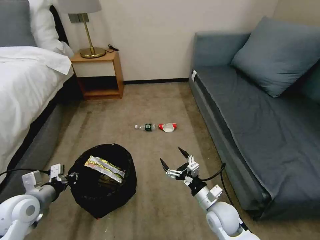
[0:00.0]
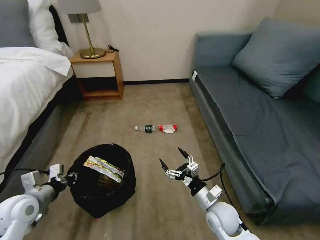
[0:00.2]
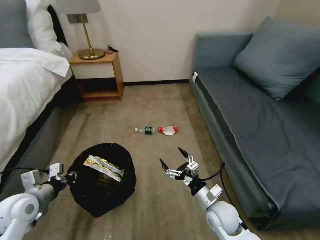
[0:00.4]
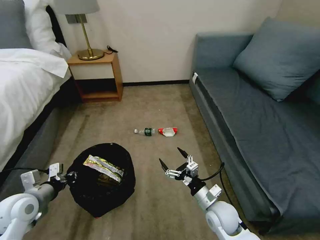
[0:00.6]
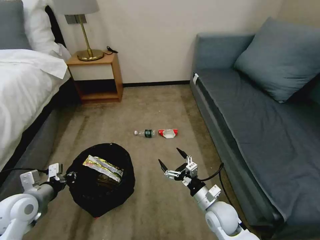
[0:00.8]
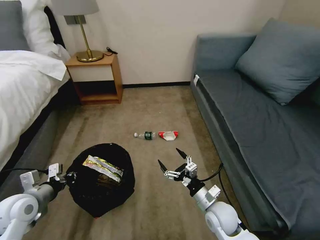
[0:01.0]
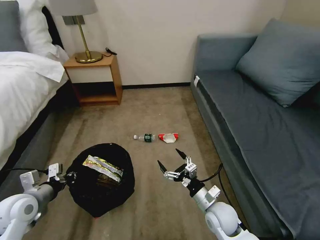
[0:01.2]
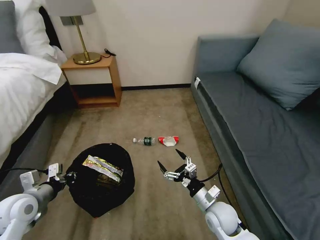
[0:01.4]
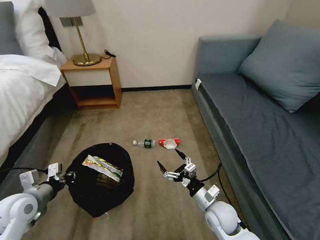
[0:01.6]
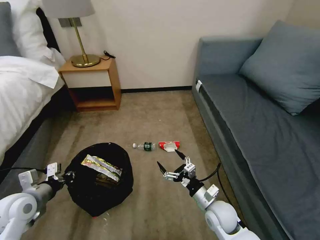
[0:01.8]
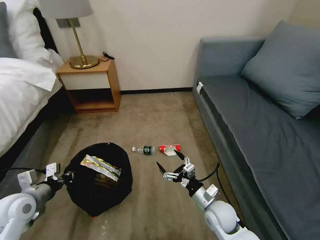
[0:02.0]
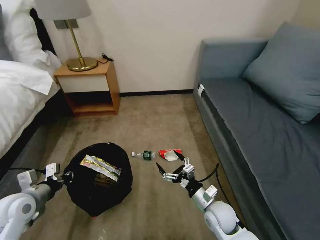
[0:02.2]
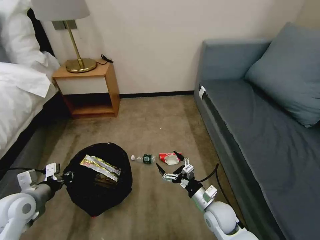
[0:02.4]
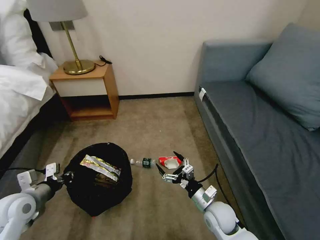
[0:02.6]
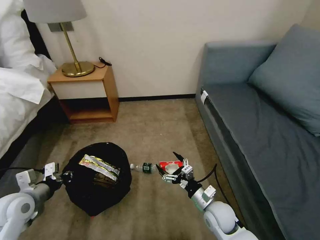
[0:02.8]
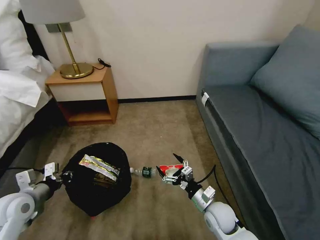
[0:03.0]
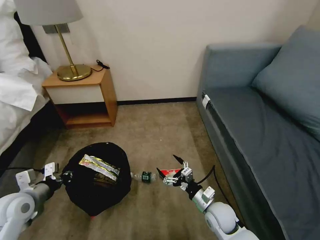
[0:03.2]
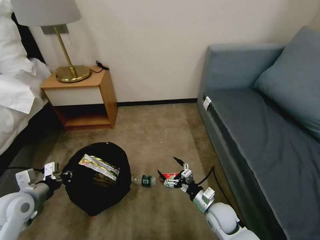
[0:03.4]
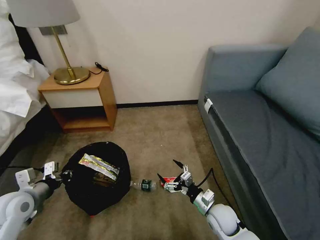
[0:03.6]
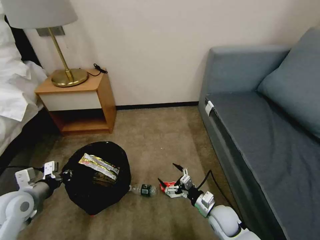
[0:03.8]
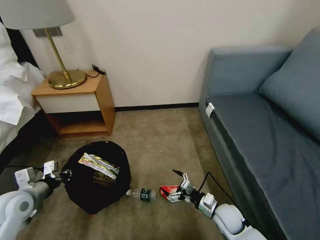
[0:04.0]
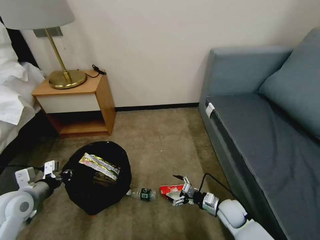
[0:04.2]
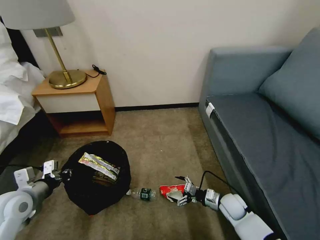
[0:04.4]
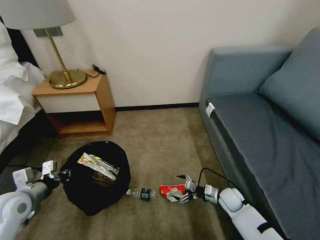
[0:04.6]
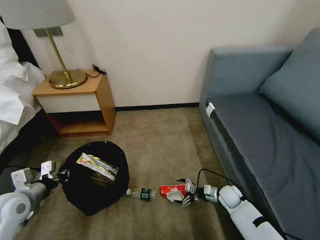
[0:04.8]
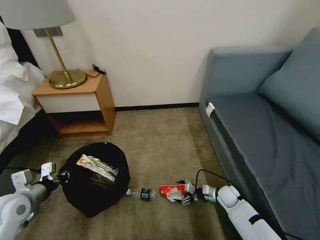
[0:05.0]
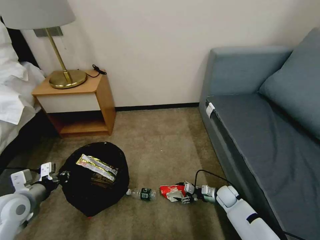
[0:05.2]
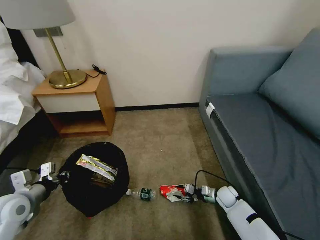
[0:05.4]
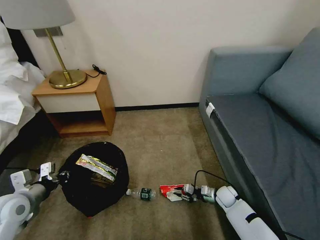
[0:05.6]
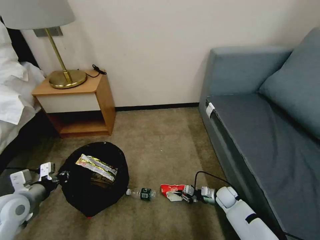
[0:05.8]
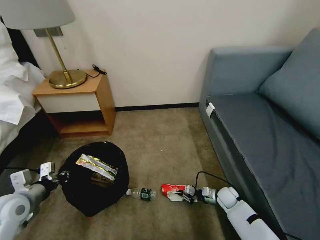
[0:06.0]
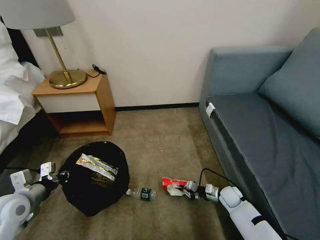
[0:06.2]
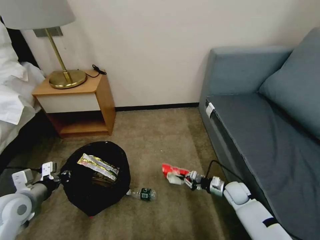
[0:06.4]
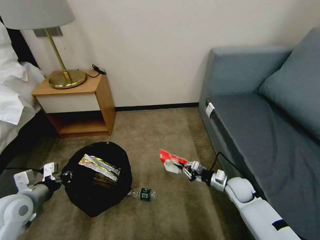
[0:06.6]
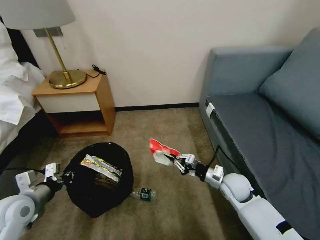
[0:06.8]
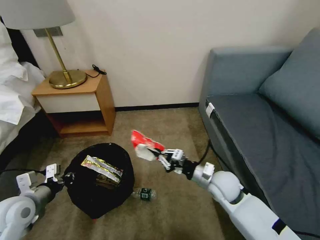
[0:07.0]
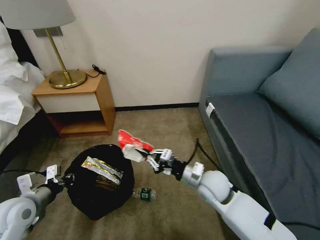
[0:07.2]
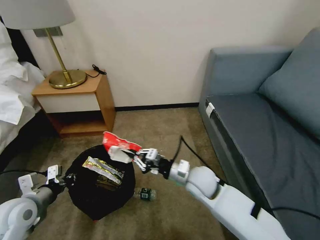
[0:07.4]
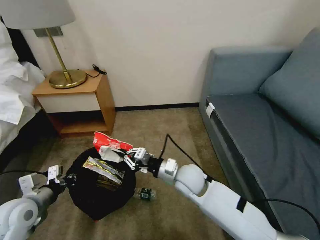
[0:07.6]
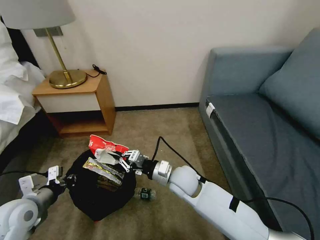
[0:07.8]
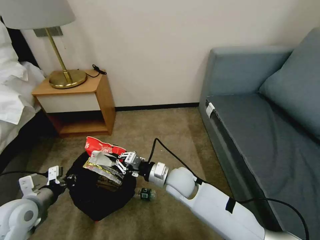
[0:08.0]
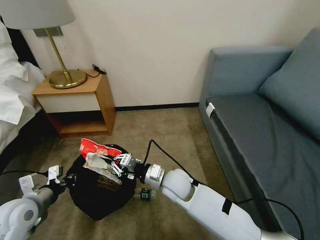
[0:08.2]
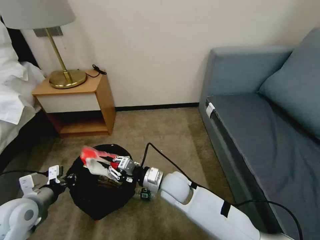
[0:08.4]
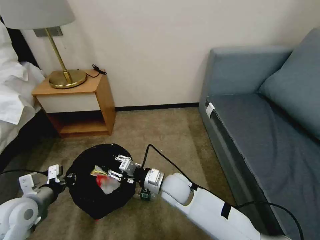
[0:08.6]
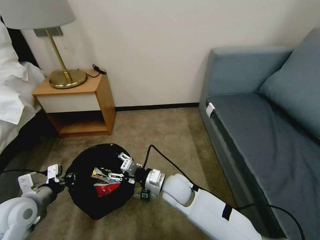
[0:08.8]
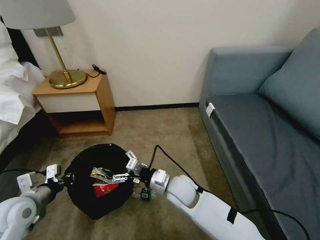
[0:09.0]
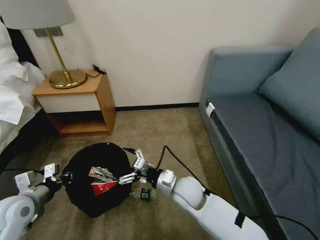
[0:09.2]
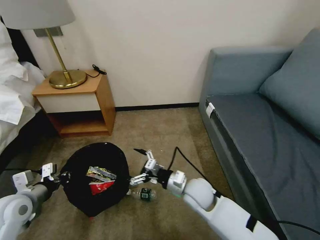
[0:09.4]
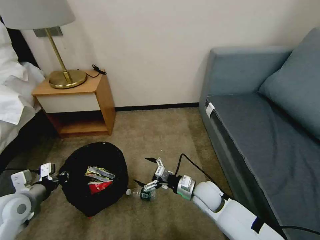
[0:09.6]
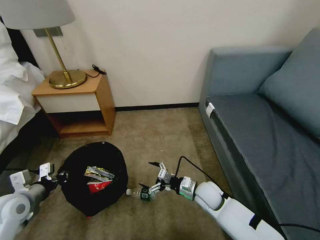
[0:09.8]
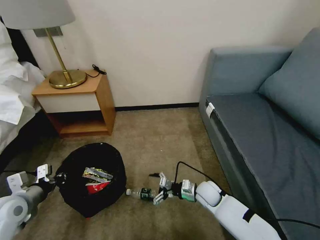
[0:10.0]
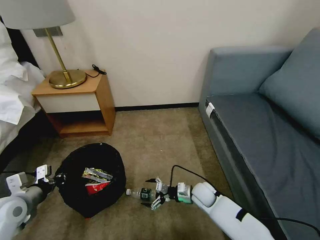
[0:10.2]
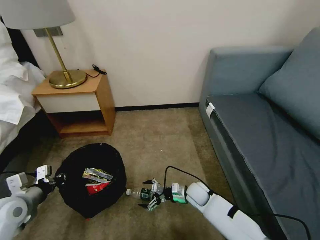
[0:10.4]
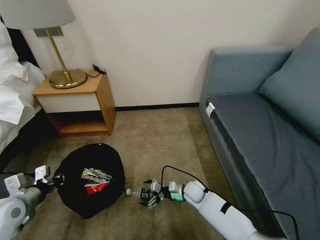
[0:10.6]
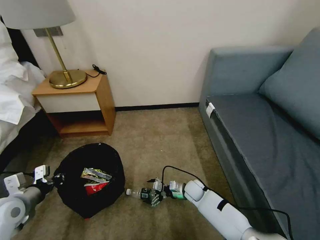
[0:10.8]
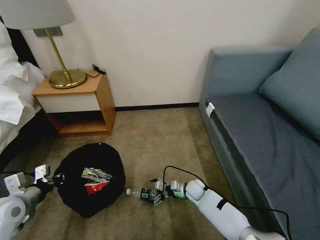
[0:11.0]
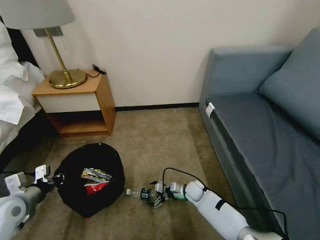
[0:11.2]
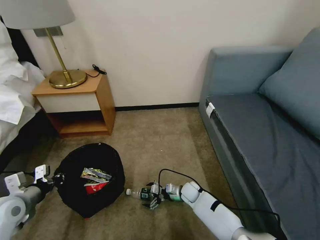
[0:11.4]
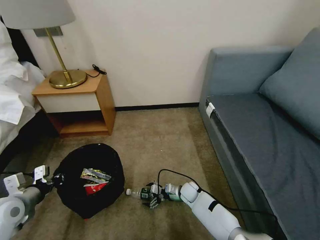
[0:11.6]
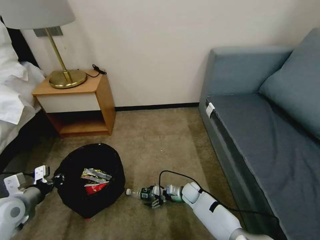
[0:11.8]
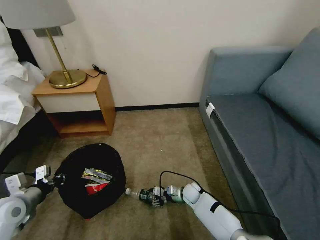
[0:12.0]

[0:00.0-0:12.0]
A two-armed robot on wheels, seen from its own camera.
Task of the whole recording: Pick up the trash bin, then pick up the garbage on the floor and place it into the trash bin.
3.0 to 4.4 s: The right gripper is displaced to the right, downward and forward by some 10 cm.
4.4 to 6.0 s: The right gripper is displaced downward by about 5 cm, and closes its fingers.
6.0 to 7.6 s: The right gripper moves upward and to the left, roughly 30 cm.
7.6 to 9.0 s: The right gripper opens its fingers.
9.0 to 10.4 s: The right gripper travels downward and to the right by about 20 cm.
10.4 to 12.0 s: The right gripper is displaced downward by about 5 cm, and closes its fingers.

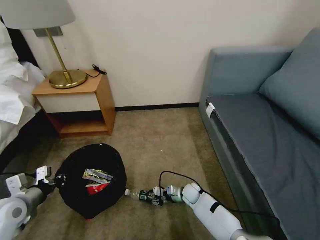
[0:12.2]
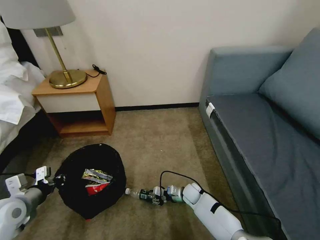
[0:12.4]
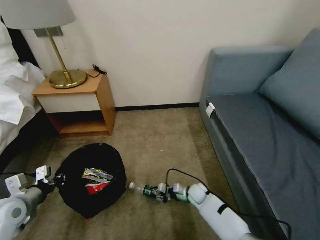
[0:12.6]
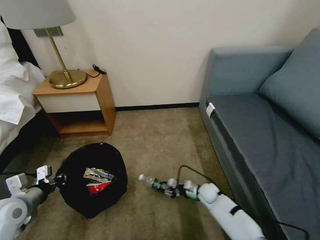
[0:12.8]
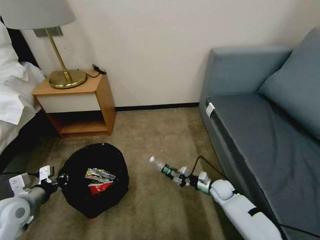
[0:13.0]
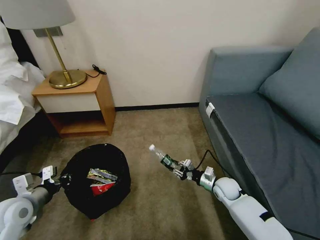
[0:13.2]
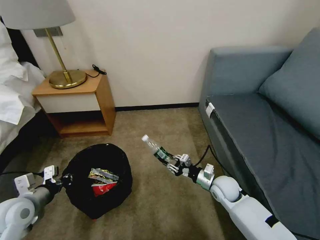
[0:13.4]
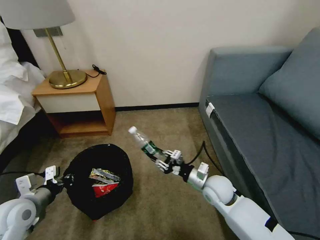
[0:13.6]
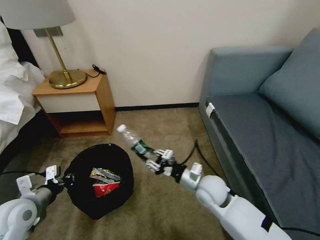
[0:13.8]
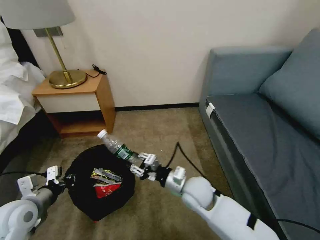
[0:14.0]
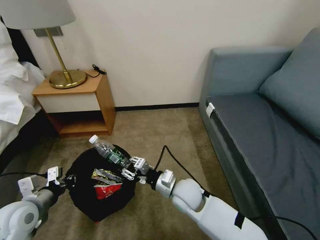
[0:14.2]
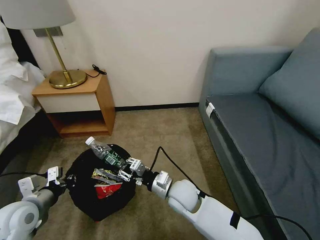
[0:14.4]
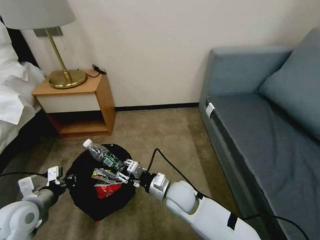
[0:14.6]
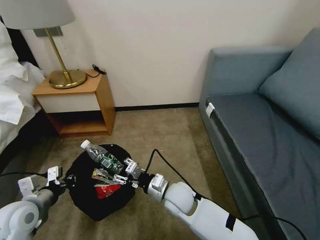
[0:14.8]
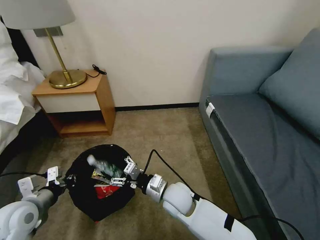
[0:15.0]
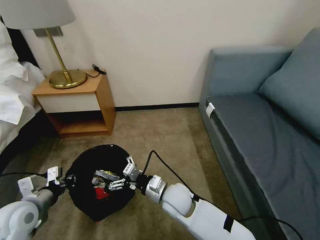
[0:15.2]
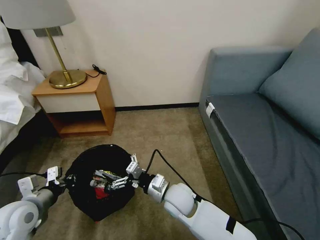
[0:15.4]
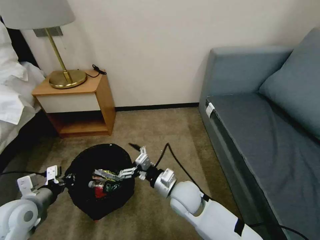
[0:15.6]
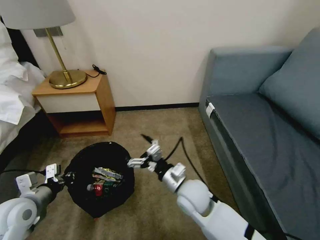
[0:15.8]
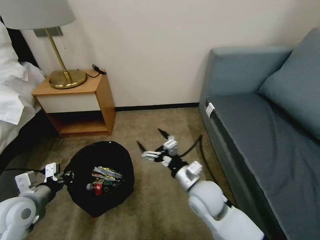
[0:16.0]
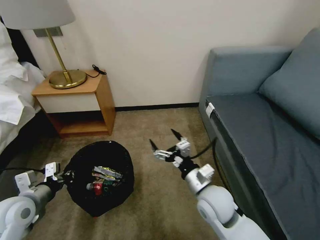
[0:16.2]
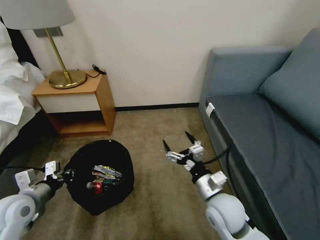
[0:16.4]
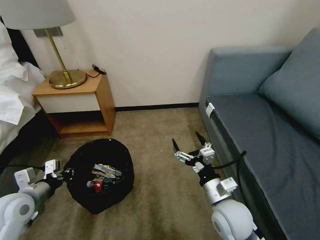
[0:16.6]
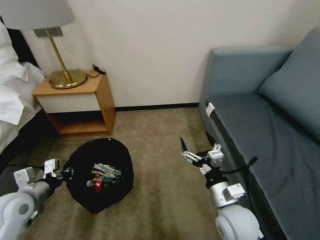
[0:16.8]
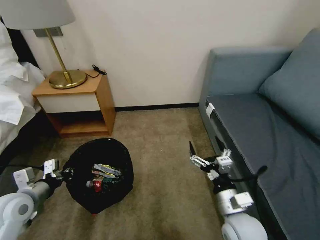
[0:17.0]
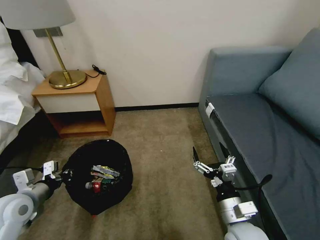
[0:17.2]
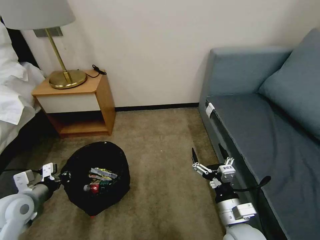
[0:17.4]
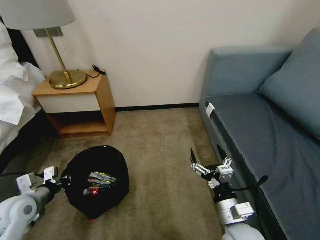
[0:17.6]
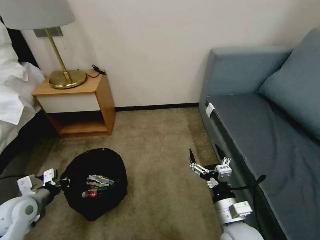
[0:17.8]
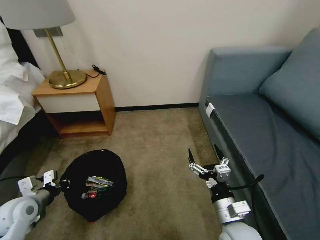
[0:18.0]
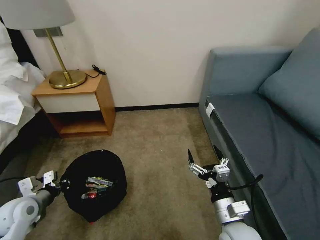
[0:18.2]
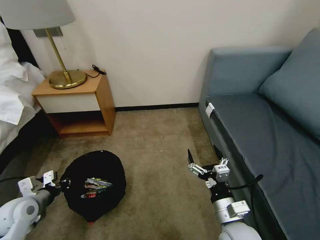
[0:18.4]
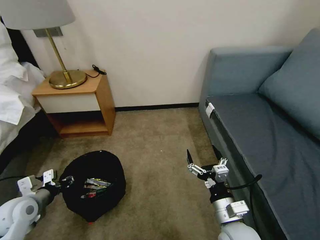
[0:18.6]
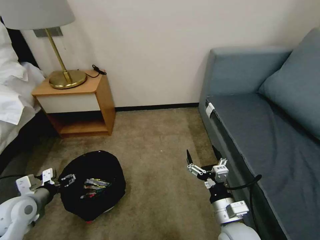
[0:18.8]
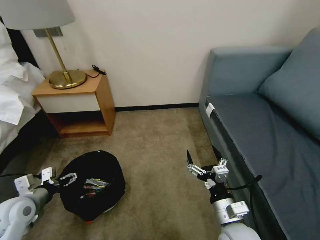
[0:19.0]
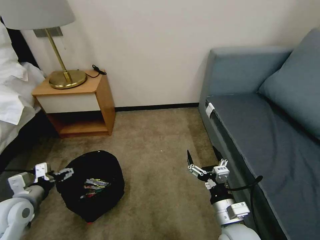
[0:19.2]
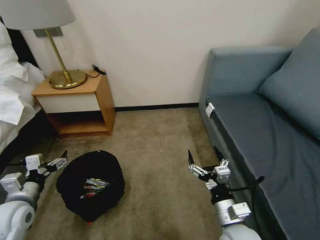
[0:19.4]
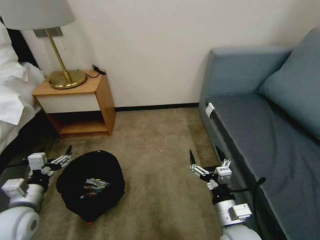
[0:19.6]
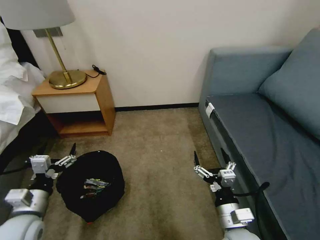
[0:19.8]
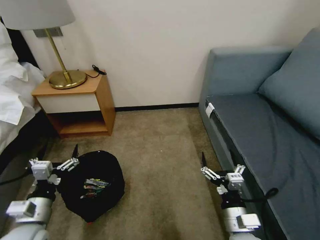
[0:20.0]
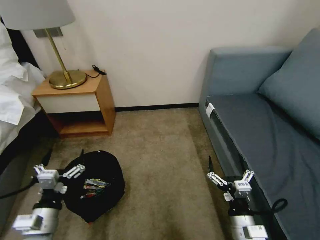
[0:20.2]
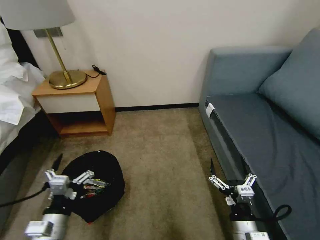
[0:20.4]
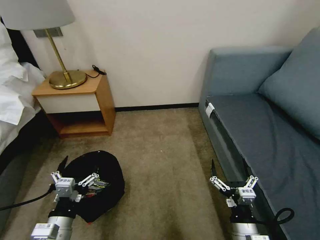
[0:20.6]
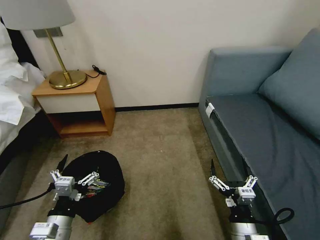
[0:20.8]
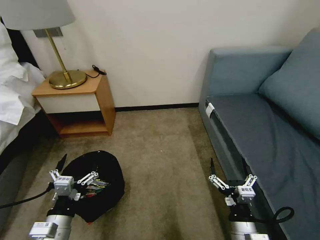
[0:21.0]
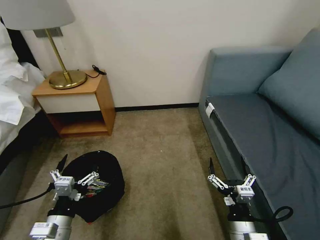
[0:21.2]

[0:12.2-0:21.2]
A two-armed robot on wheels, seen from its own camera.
Task of the whole recording: Pick up the trash bin, then pick up the garbage on the floor and place it into the trash bin.
12.2 to 13.8 s: The right gripper travels upward by some 25 cm.
13.8 to 15.2 s: The right gripper heads to the left, covering about 10 cm, and opens.
15.2 to 16.6 s: The right gripper heads to the right and backward, covering some 15 cm.
16.6 to 18.2 s: The left gripper goes some 5 cm downward, while the right gripper moves backward, some 5 cm.
18.2 to 19.8 s: The left gripper travels to the right and backward by some 10 cm, and opens up.
19.8 to 21.2 s: The left gripper travels to the right and backward by about 10 cm.

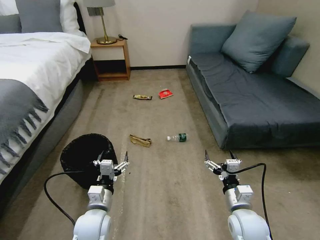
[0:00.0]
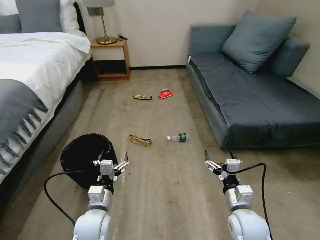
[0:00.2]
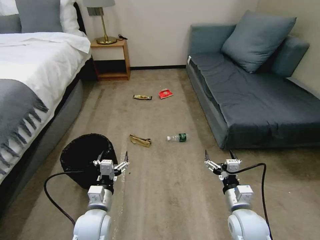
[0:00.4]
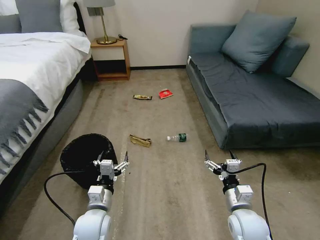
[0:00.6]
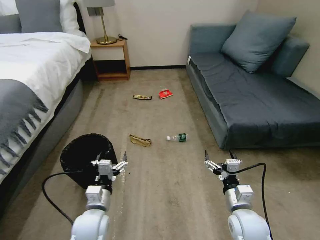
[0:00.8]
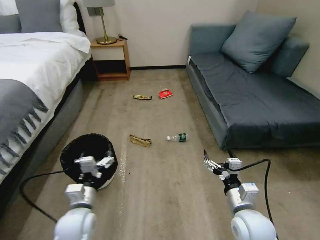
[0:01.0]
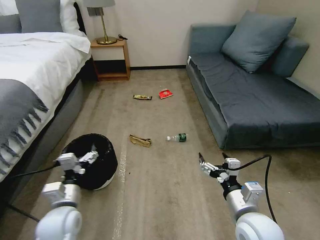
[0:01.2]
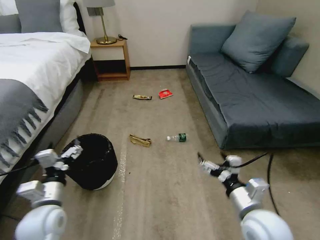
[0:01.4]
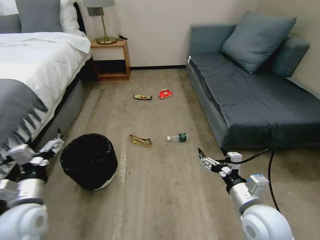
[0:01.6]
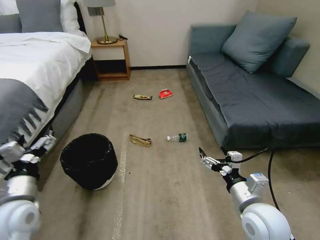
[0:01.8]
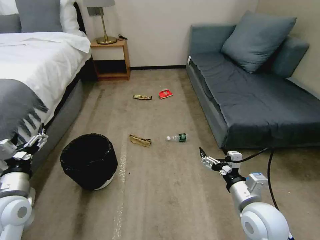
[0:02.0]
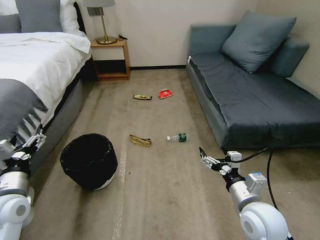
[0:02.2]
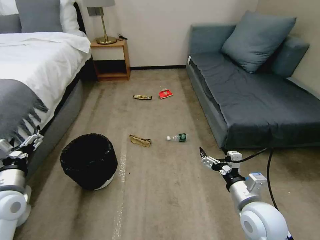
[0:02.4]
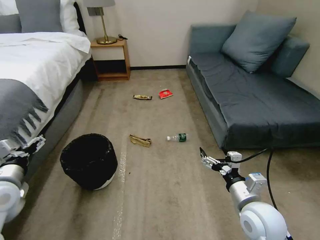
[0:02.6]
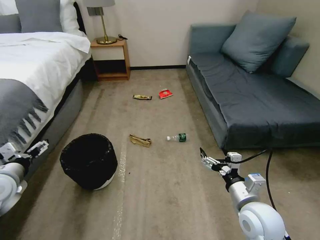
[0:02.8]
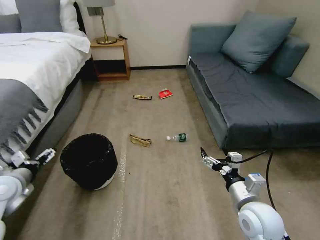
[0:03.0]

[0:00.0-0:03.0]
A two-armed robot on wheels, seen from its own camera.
Task of the whole recording: Pick up the trash bin, then pick up the garbage on the floor and place it into the trash bin.
1.6 to 3.0 s: The left gripper shifts approximately 15 cm to the left and forward.
